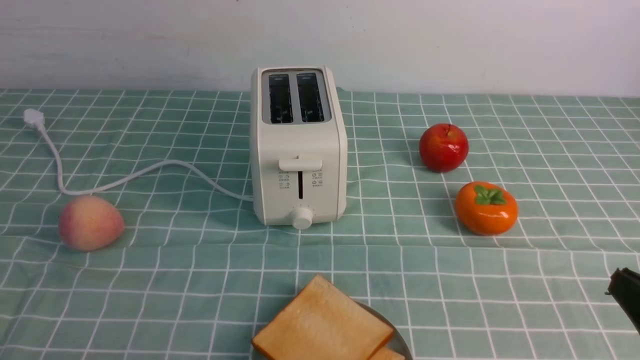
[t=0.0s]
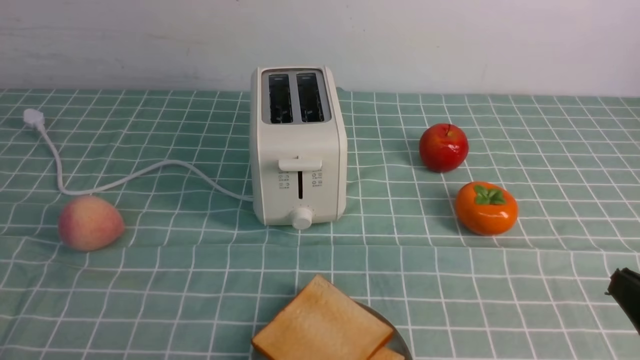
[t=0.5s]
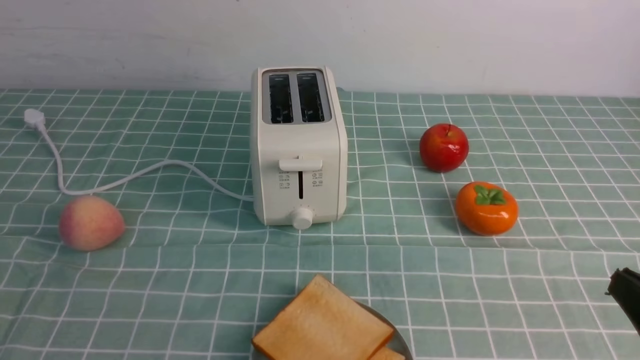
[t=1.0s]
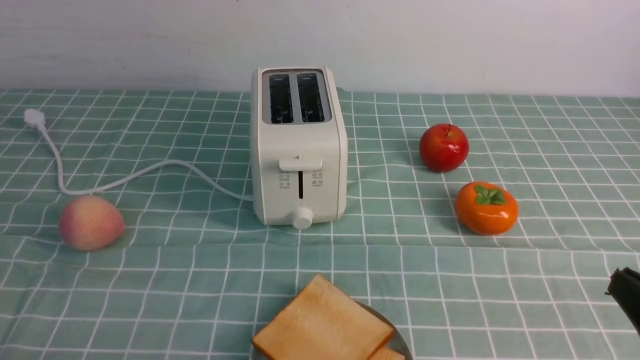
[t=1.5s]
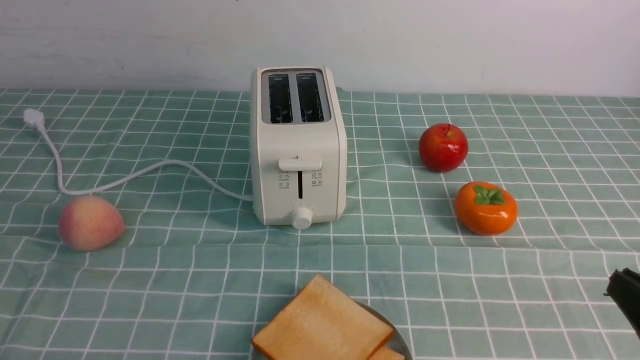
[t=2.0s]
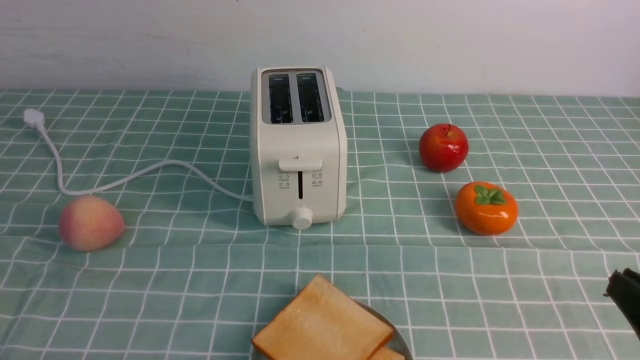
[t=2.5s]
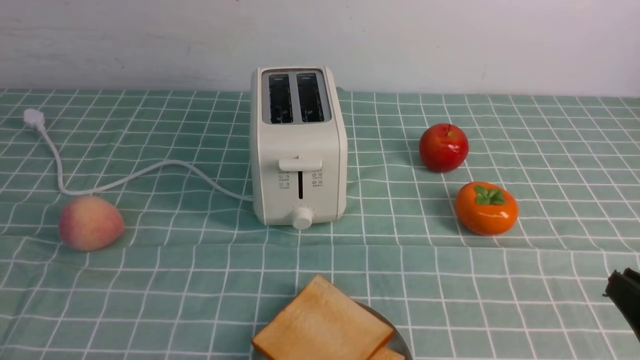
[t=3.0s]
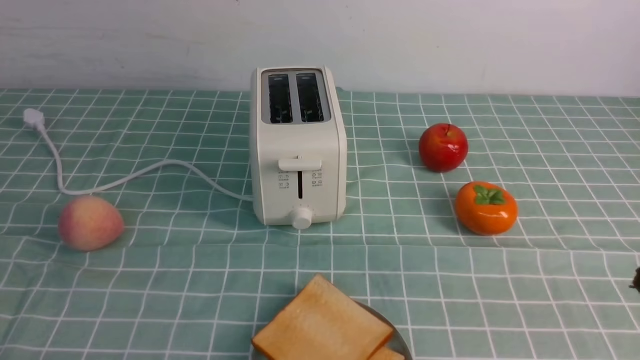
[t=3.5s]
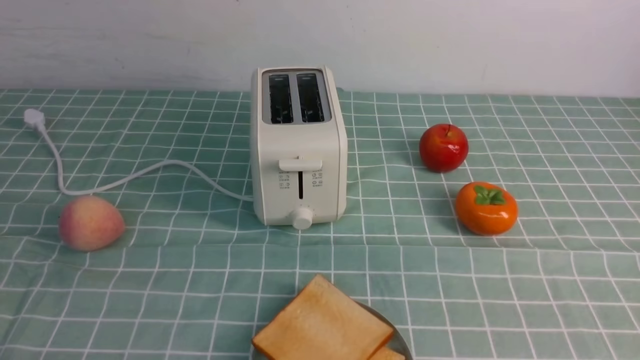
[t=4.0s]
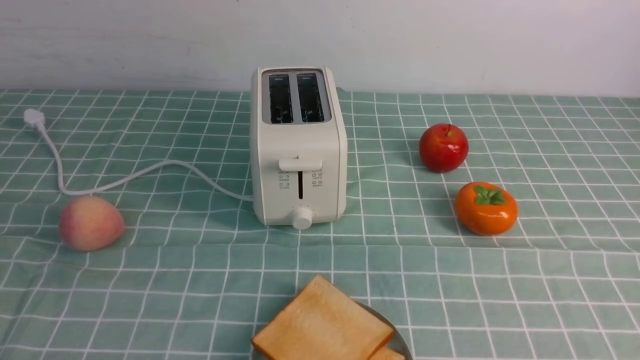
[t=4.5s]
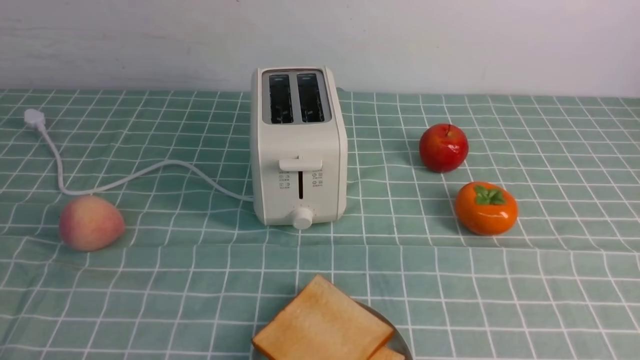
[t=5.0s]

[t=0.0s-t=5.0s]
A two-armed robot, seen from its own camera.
Task of the whole recording: take toasted bread from bread machine on blue coffee table place on plate.
t=2.5s to t=5.0s: The right gripper travels downward and backward by some 10 cm.
